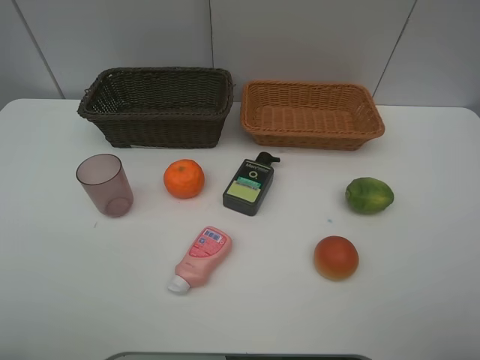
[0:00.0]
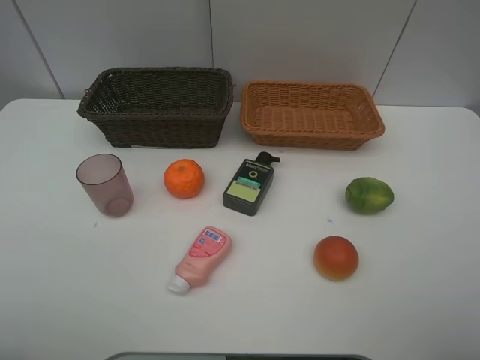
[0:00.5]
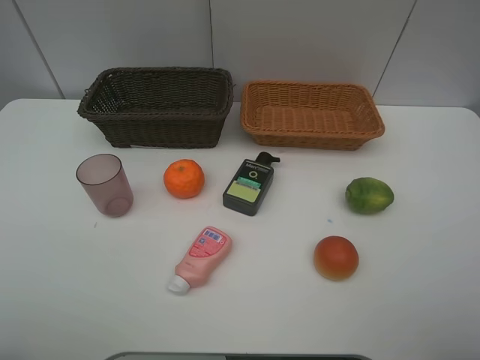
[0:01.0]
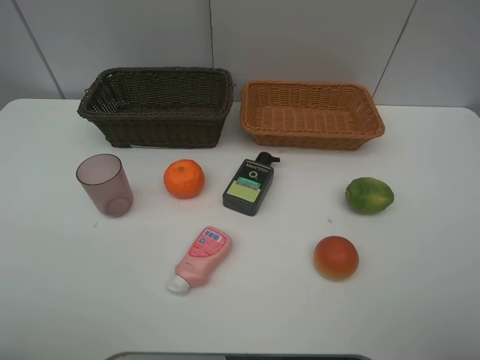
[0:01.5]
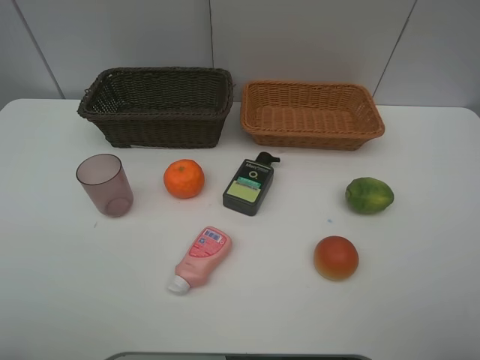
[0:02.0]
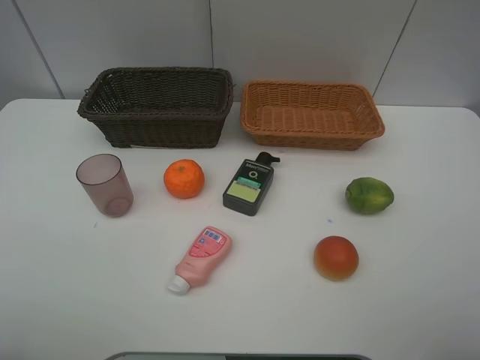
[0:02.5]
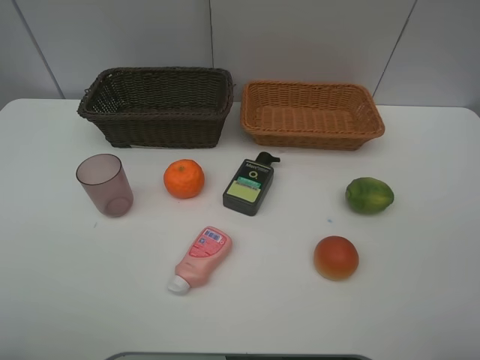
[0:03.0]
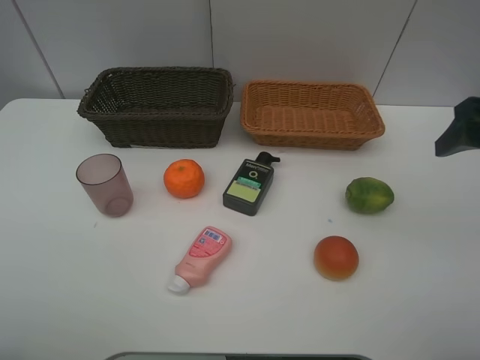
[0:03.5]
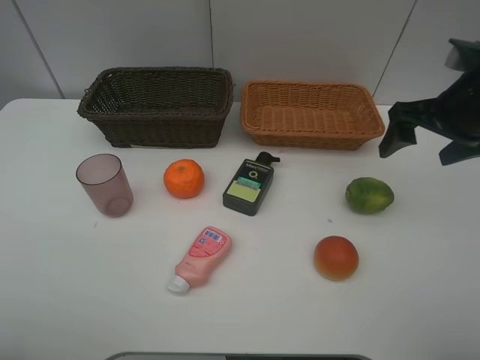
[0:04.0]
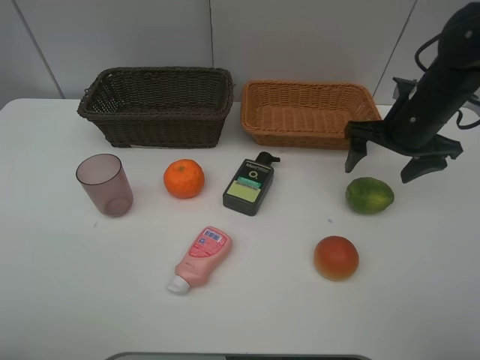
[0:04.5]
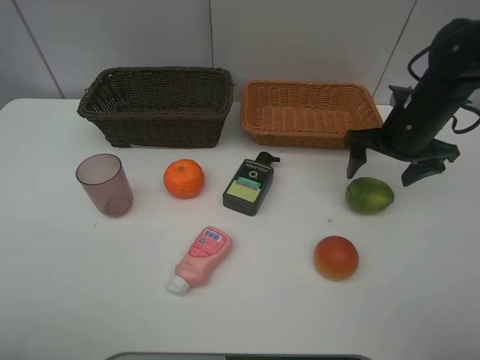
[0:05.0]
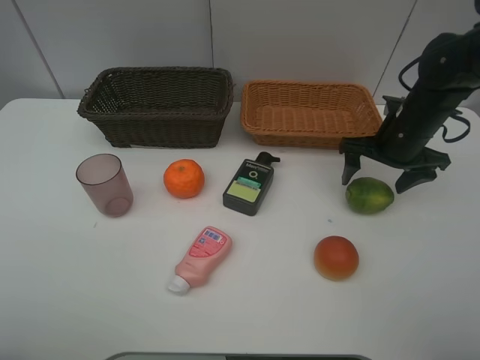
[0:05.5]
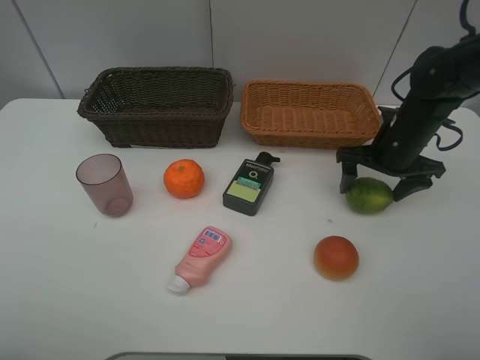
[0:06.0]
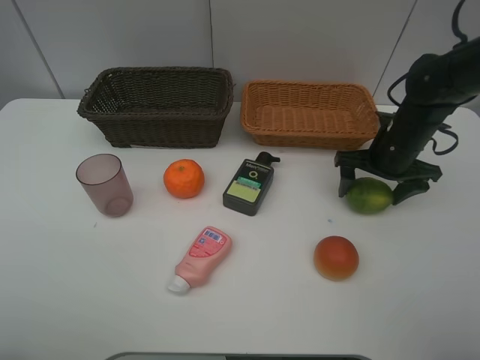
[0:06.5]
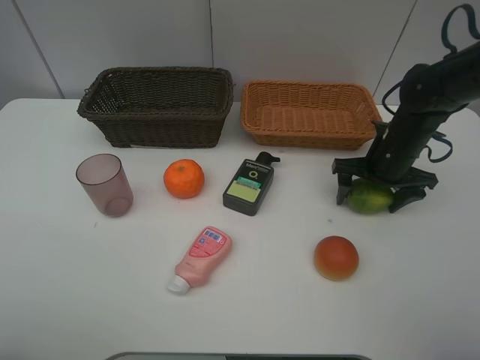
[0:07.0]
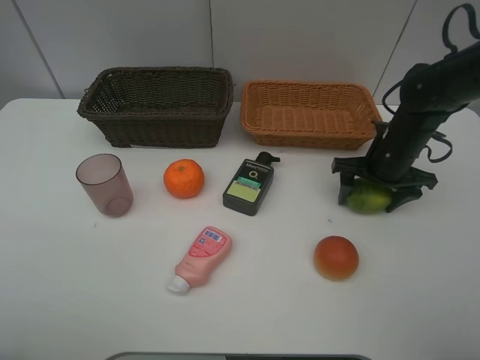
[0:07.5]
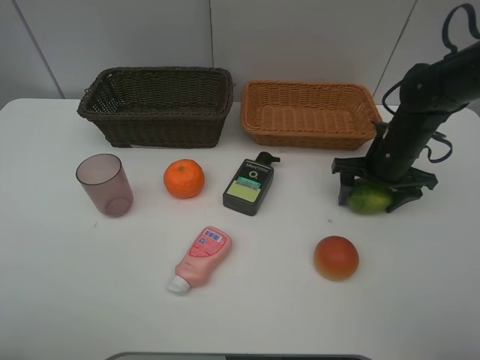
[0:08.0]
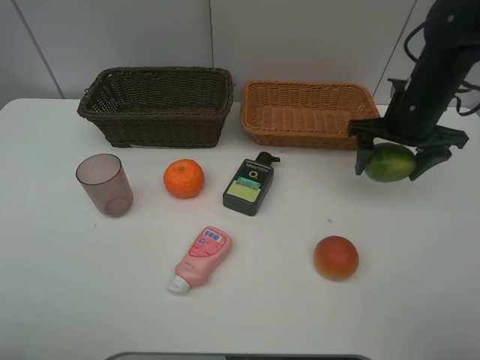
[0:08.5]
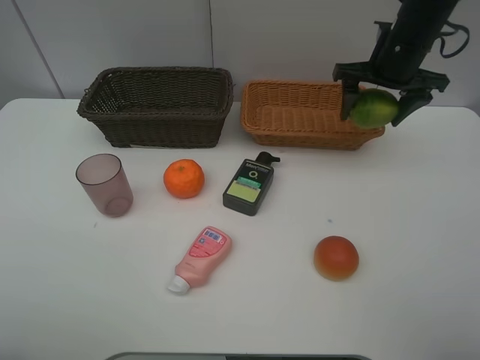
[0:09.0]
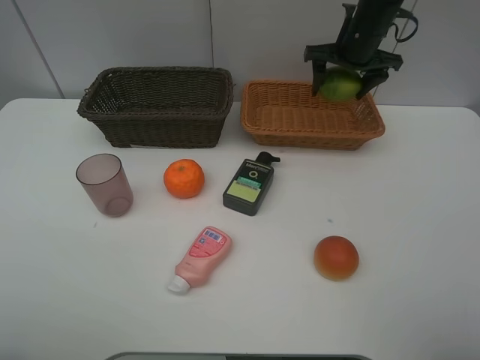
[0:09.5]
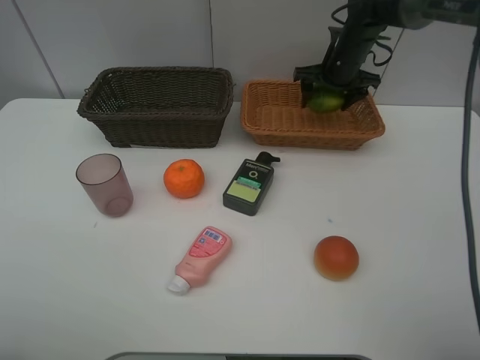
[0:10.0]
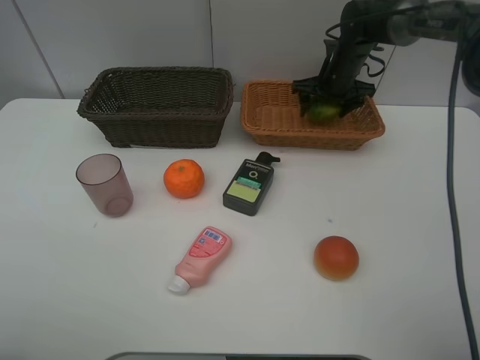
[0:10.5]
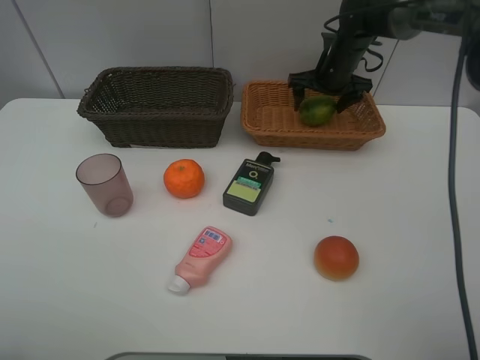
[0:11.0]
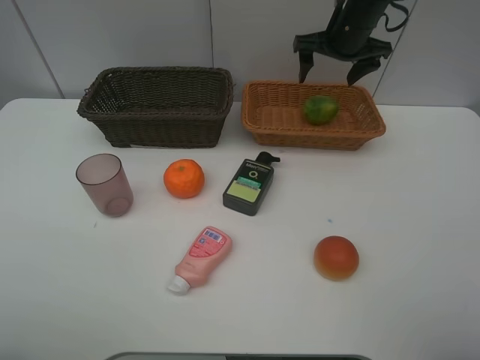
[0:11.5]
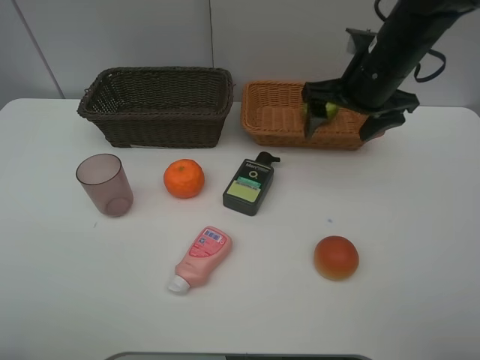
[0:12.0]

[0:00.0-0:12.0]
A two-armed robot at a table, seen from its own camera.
Task of the whole recording: place multiple objects separately in different baskets.
0.0 to 2.0 s: Both grippers stay about where they are.
2.0 to 4.0 s: The right gripper is displaced forward by approximately 30 cm.
4.0 to 6.0 s: The right gripper is displaced downward and forward by roughly 10 cm.
6.0 to 8.0 s: The grippers make only small movements.
8.0 to 10.0 s: The right gripper is displaced forward by about 15 cm.
10.0 to 12.0 s: The right gripper heads backward, covering approximately 15 cm.

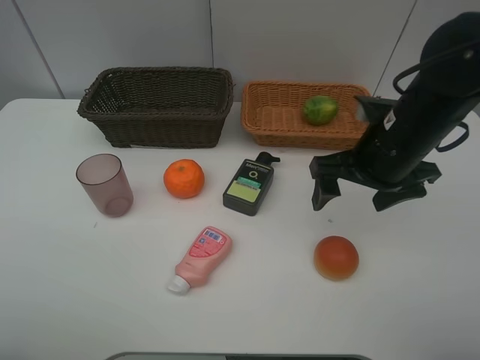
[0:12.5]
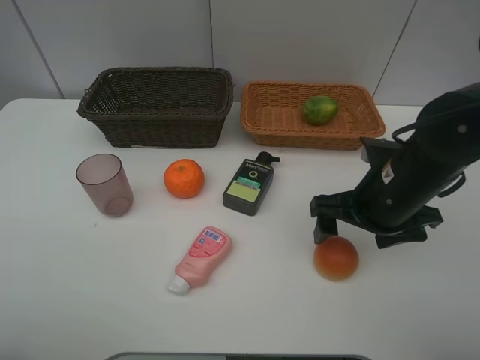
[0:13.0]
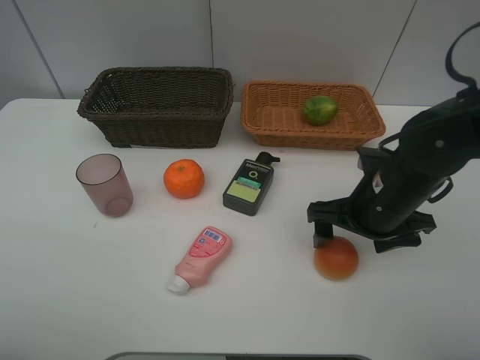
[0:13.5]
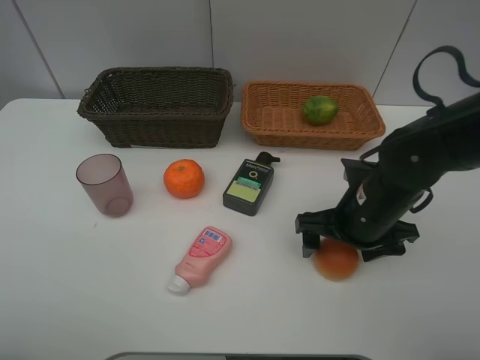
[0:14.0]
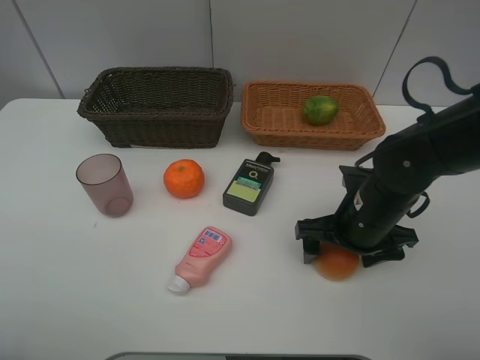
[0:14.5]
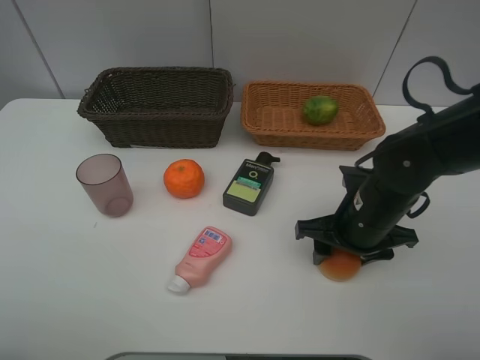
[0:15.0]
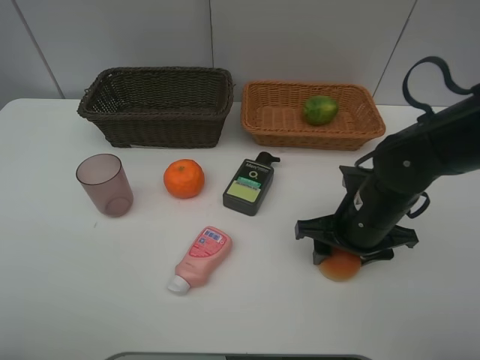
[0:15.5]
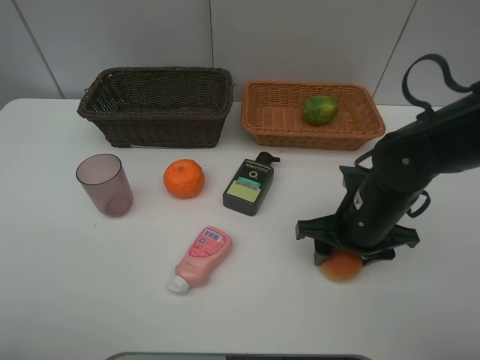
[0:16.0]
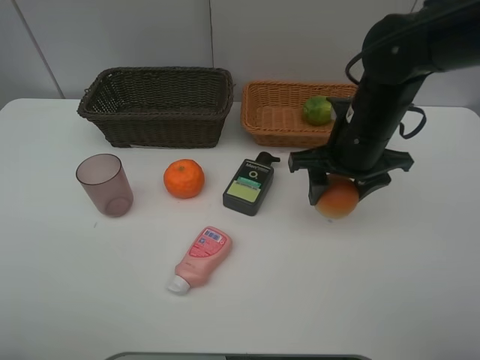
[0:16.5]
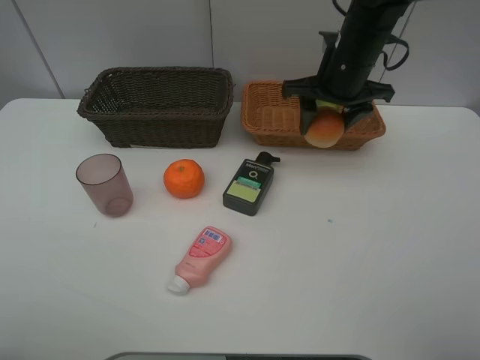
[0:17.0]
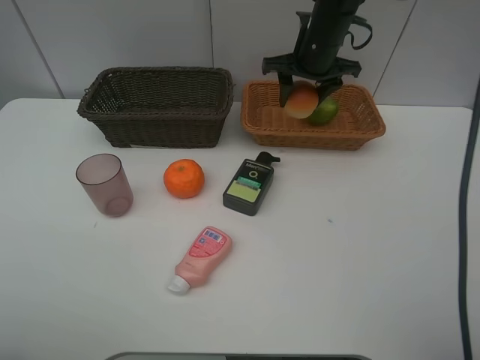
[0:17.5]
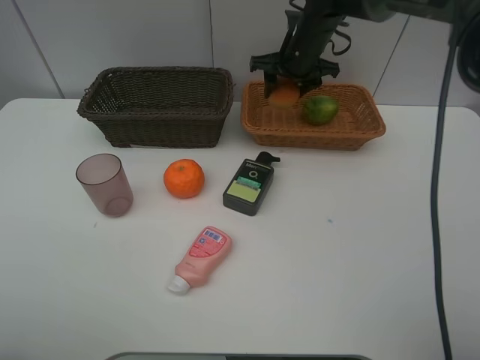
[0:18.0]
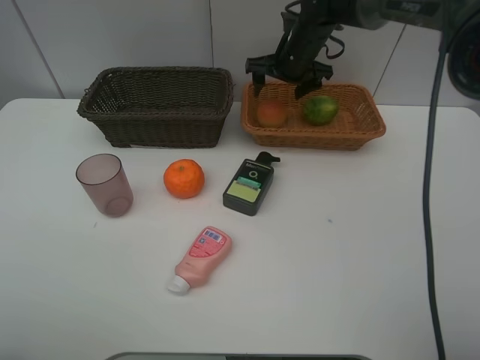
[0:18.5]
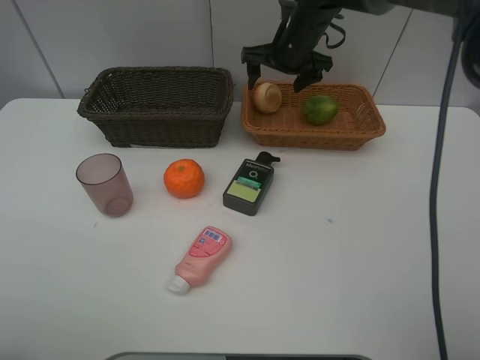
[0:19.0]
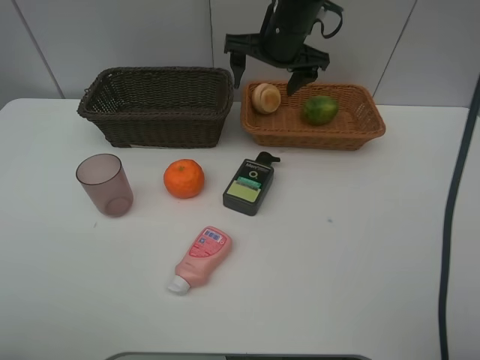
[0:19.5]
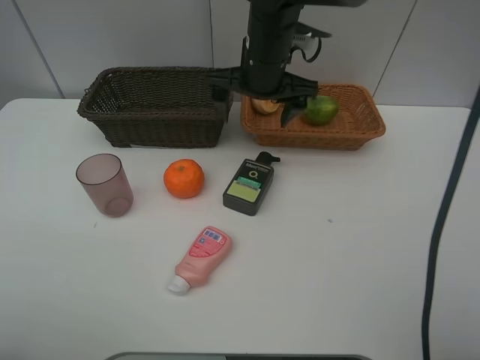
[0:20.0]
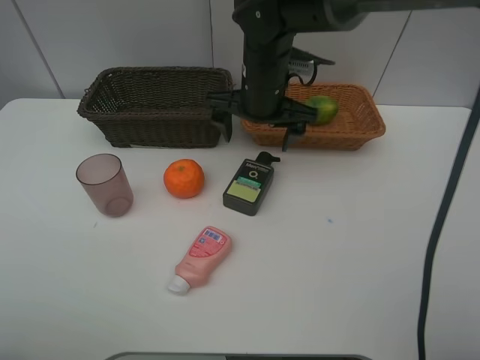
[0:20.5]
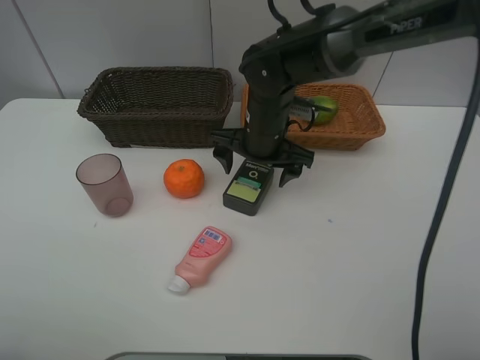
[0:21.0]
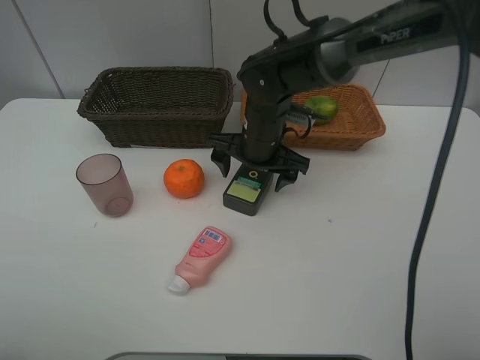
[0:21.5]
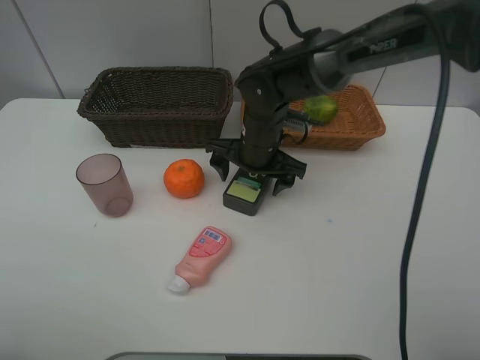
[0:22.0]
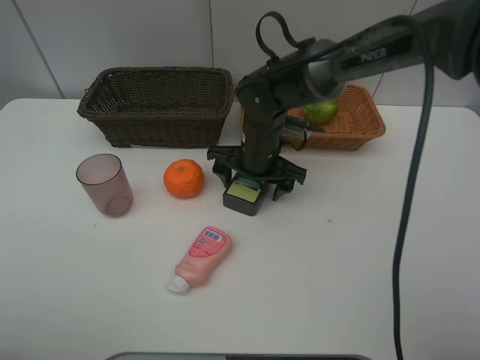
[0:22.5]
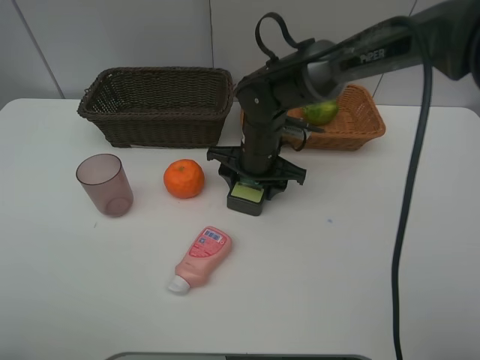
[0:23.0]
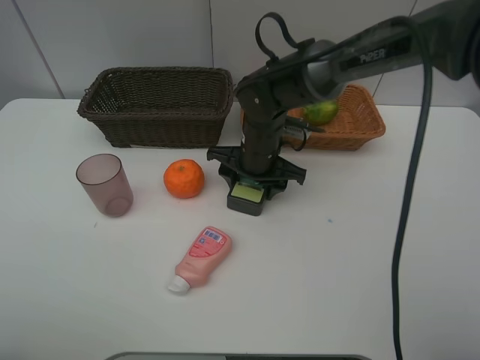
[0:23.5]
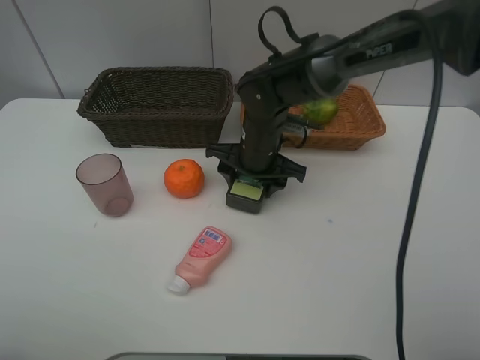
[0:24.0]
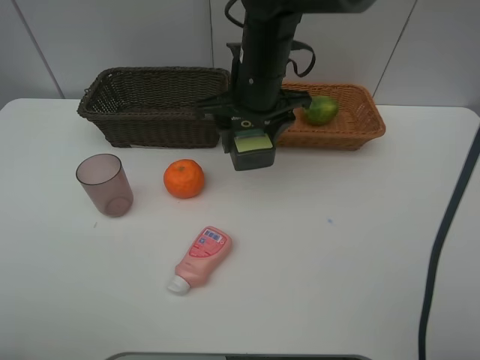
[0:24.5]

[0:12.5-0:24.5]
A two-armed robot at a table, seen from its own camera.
Task of the whole recording: place multiple objects separately in different baskets.
12.5 to 14.5 s: The right gripper moves downward, some 10 cm.
14.5 to 16.5 s: The right gripper is displaced upward and forward by approximately 10 cm, and closes up.
16.5 to 18.5 s: The right gripper shifts some 20 cm forward, and opens its fingers.
18.5 to 20.5 s: The right gripper shifts roughly 15 cm backward and to the left.
20.5 to 22.5 s: The right gripper heads downward, covering about 10 cm.
22.5 to 24.5 s: The right gripper moves upward, approximately 10 cm, and closes up.

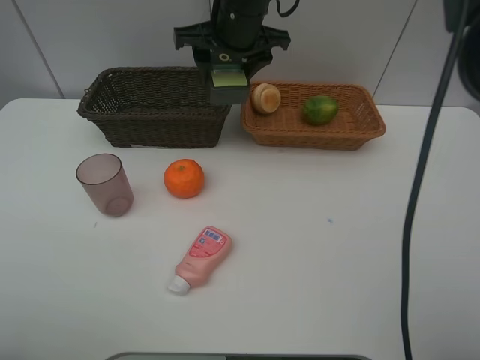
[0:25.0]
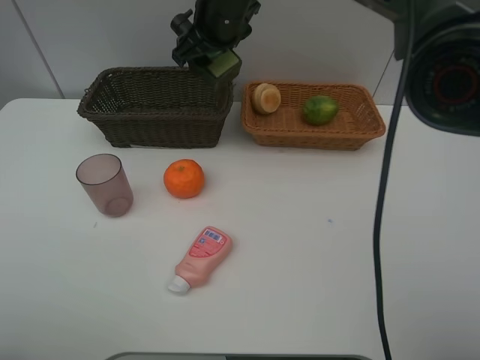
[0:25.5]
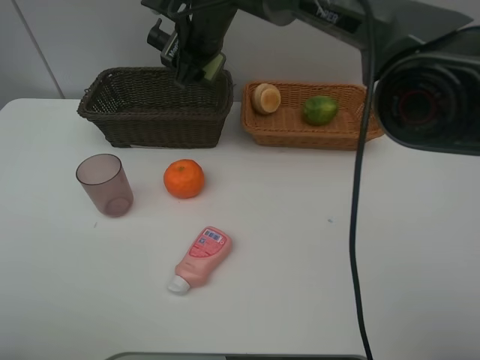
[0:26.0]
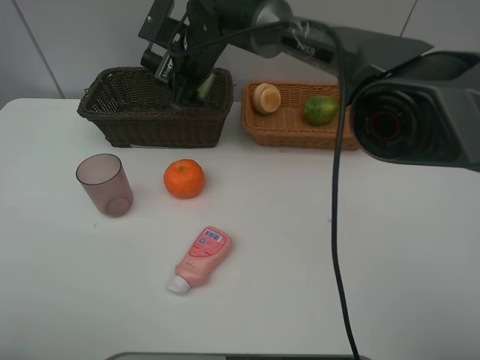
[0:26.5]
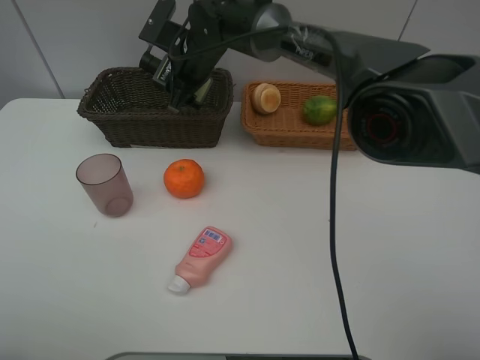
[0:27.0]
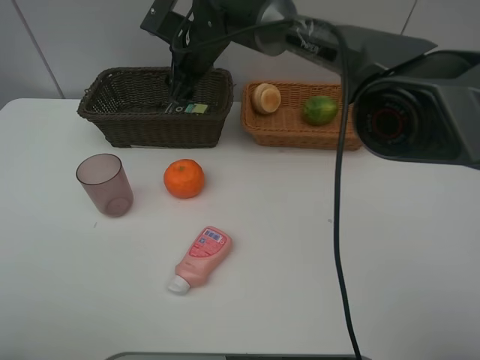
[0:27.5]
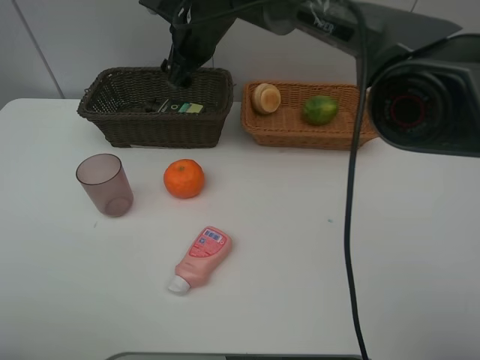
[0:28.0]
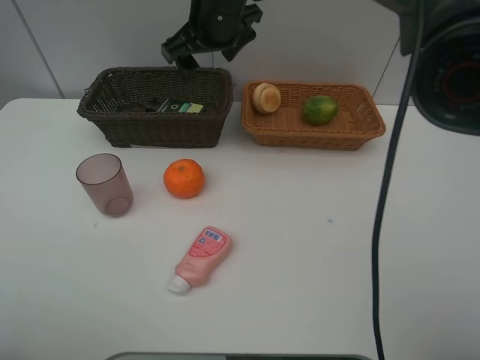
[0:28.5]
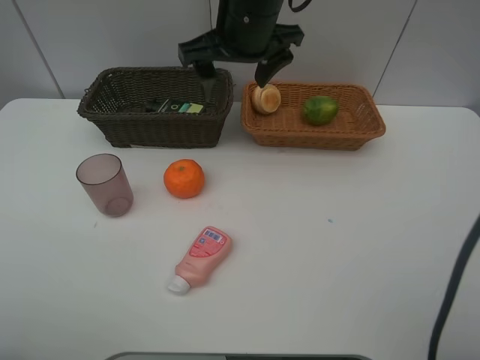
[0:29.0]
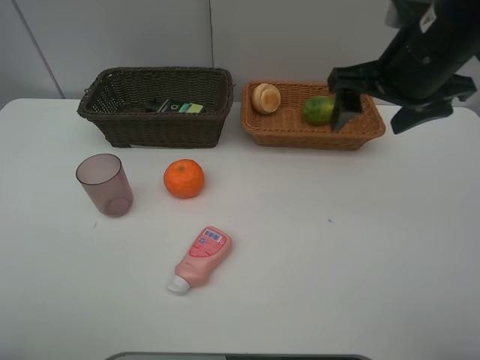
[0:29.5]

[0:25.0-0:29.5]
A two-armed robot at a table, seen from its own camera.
Task of the whole recording: place multiple objects separately in different baskets.
25.0 to 27.0 s: The right gripper moves downward and to the left, roughly 10 cm.
27.0 to 29.5 s: The right gripper travels to the right and backward by some 30 cm, and opens.
